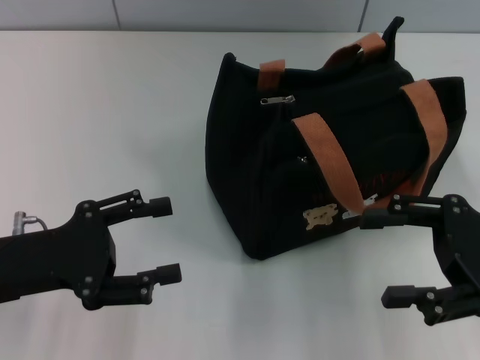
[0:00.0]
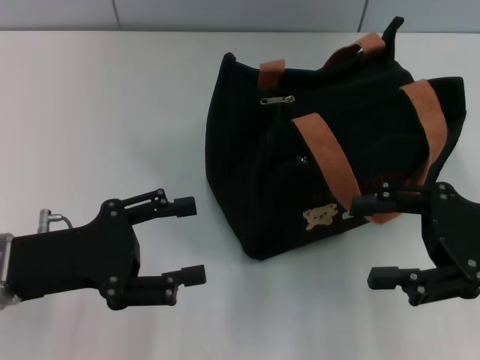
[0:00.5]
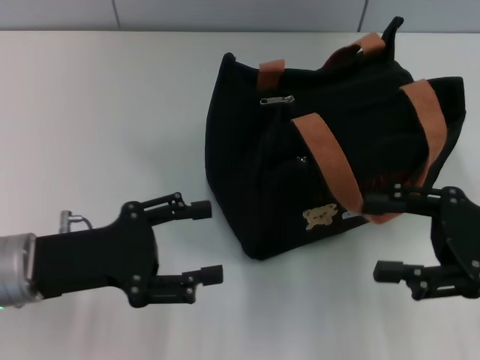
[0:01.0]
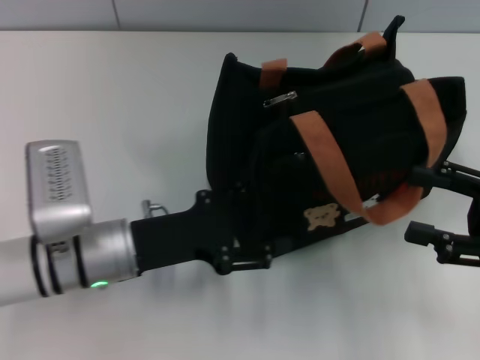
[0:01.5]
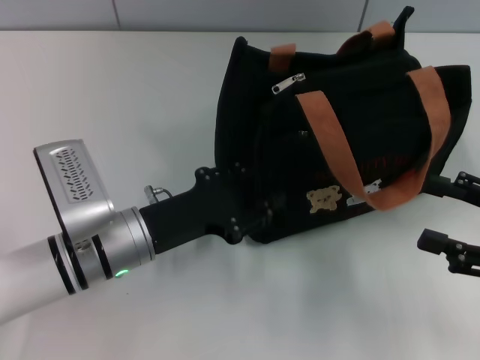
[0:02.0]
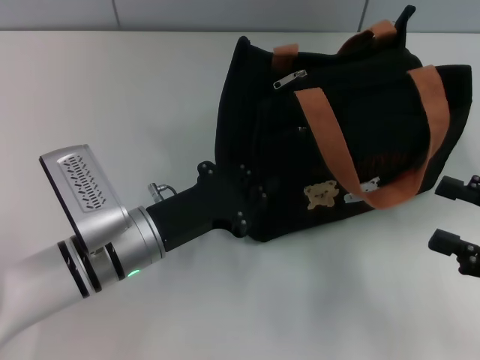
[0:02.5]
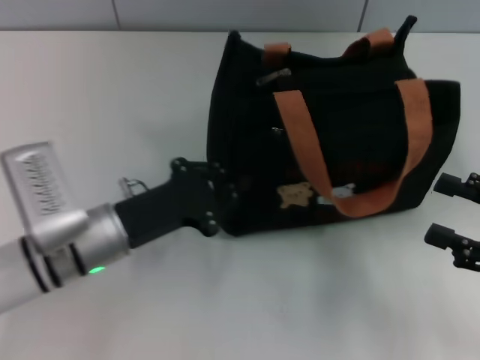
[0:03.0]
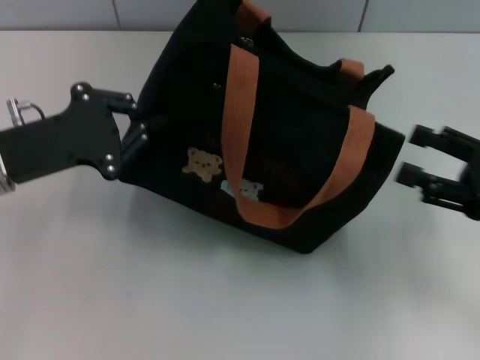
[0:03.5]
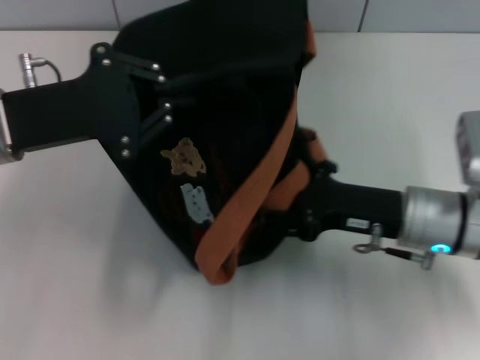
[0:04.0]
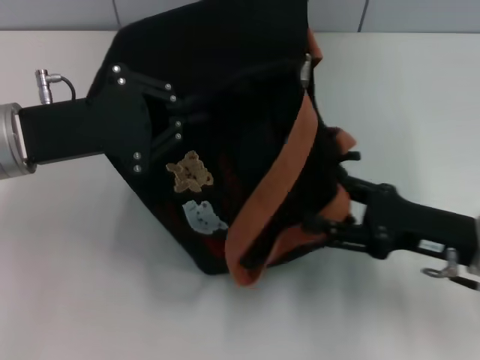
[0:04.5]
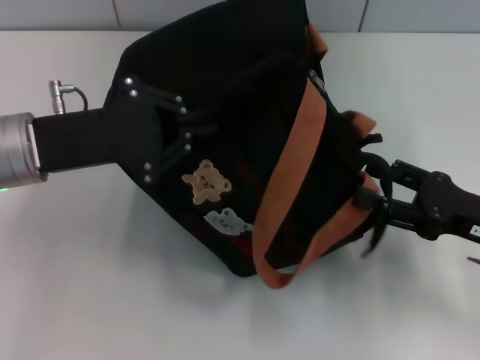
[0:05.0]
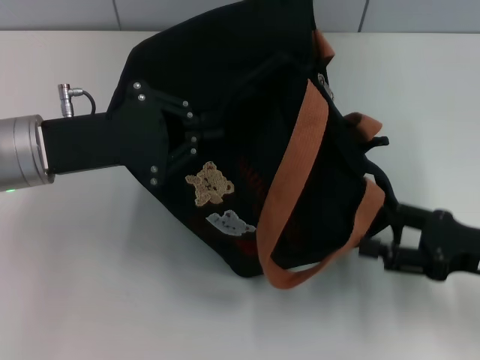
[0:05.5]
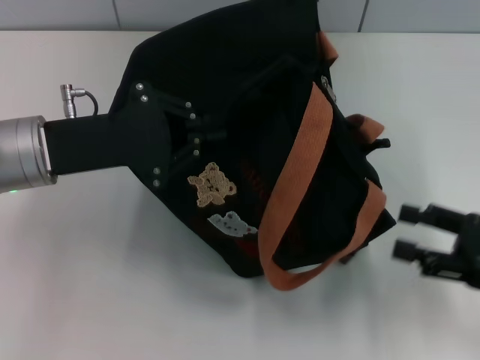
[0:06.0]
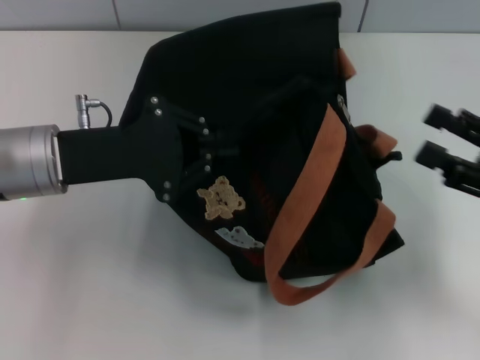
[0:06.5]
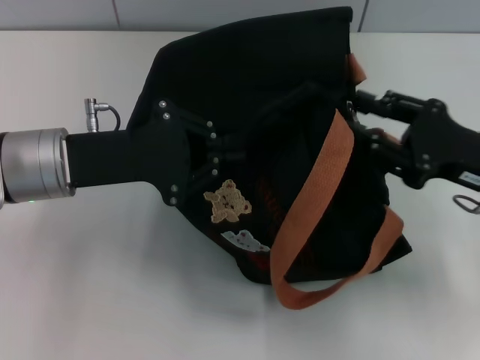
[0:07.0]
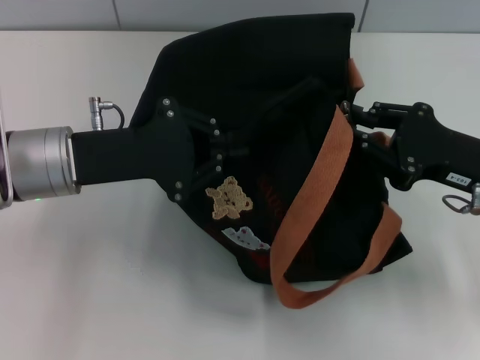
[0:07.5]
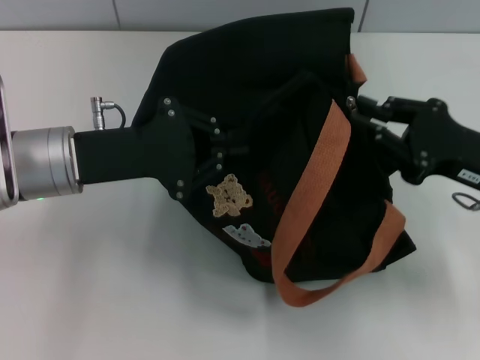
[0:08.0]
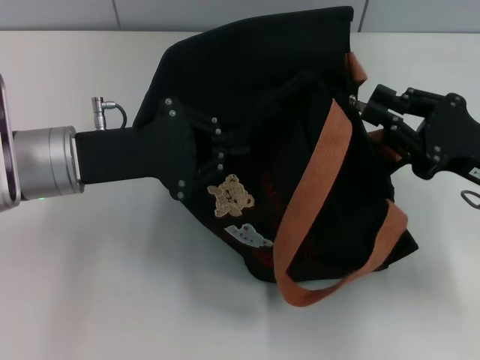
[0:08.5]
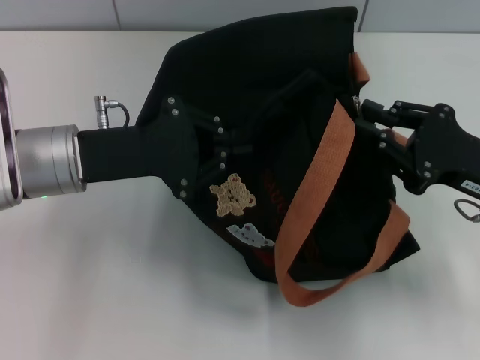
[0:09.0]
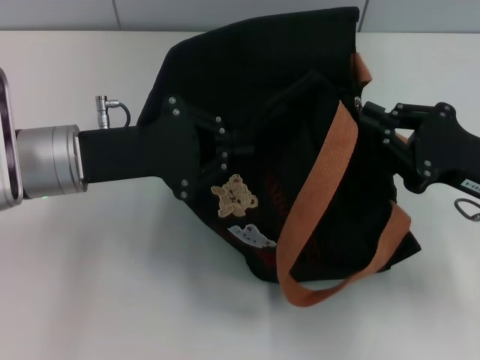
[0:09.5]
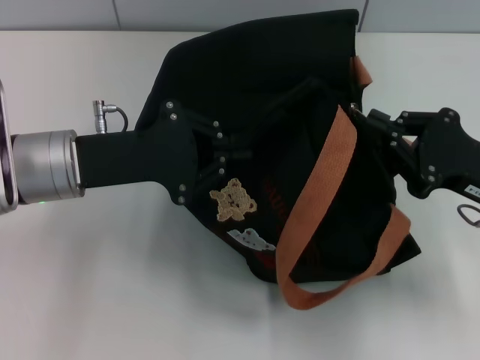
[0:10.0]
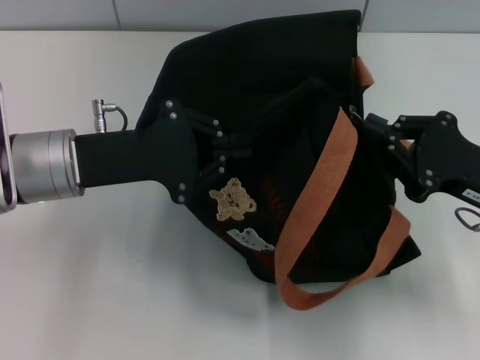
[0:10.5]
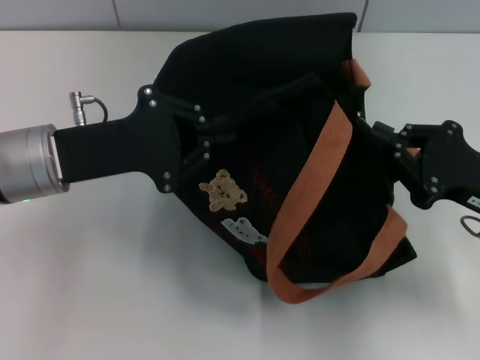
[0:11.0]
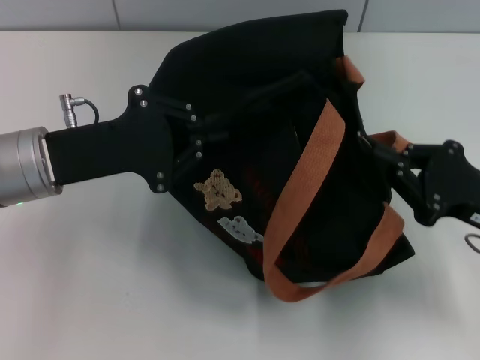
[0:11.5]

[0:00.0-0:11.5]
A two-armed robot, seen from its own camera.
0:00.0 to 0:02.0: The right gripper shifts by about 5 cm; the left gripper heads to the right and downward, covering about 15 cm.
0:02.0 to 0:04.0: The right gripper moves to the left and forward, about 15 cm. The left gripper goes about 15 cm upward and to the left, and closes.
0:04.0 to 0:06.0: The right gripper moves to the right and backward, some 15 cm.
0:06.0 to 0:07.5: The right gripper travels forward and to the left by approximately 10 cm, and closes up.
0:07.5 to 0:11.5: The grippers stay close to where they were, moving slightly.

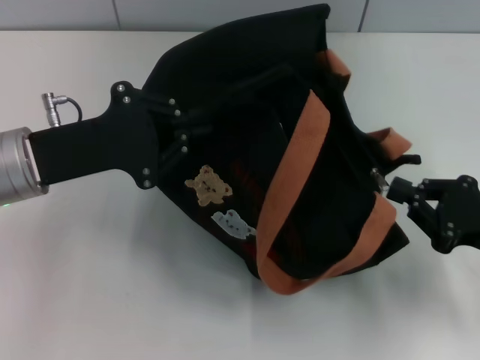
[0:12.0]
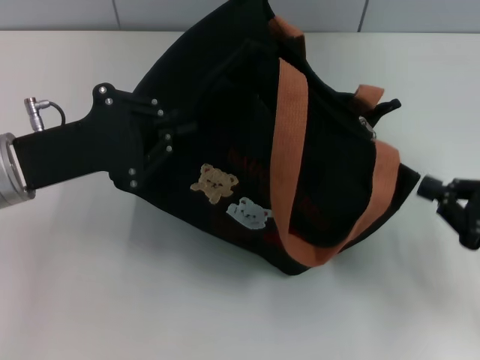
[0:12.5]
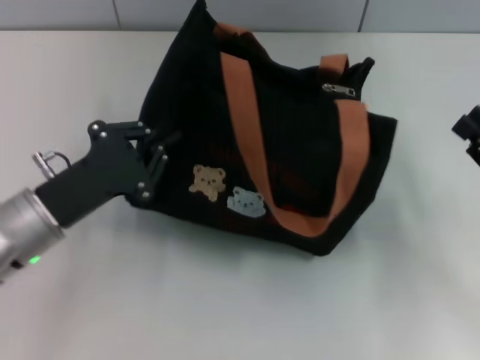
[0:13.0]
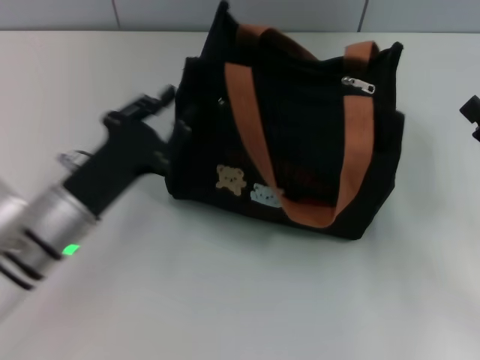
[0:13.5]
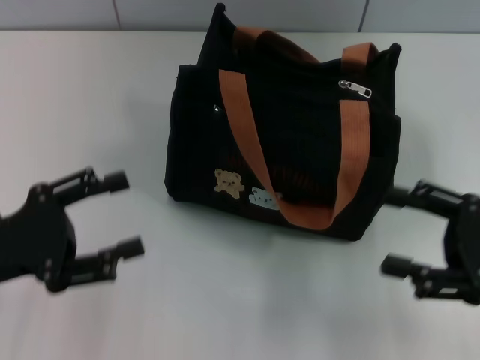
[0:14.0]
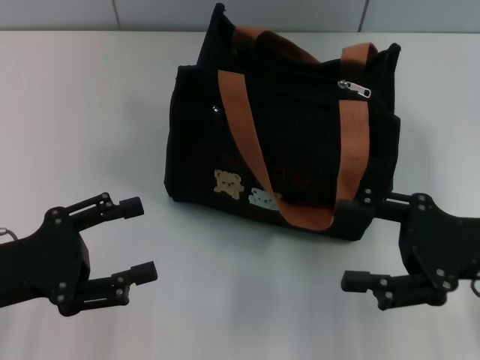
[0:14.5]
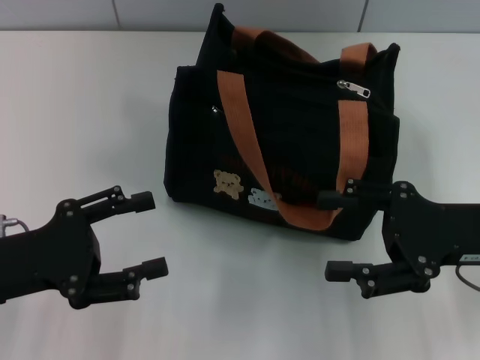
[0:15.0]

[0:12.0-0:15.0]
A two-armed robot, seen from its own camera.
Step, 0:12.5 to 0:13.0: Grab the bag with your left hand.
0:12.0 to 0:13.5: The left gripper moves downward, some 10 cm. Meanwhile the right gripper opens up.
0:13.5 to 0:15.0: The two grippers go about 10 cm to the left. The left gripper opens up.

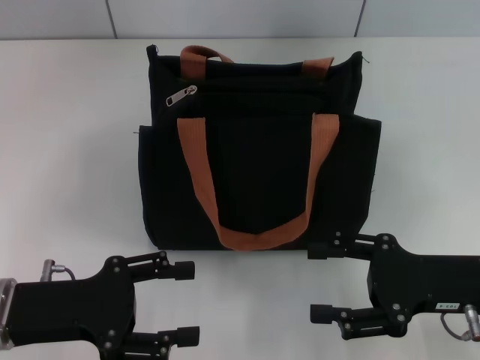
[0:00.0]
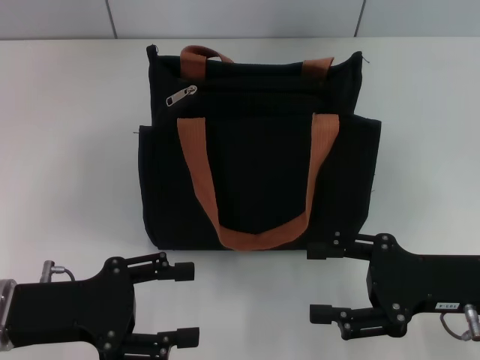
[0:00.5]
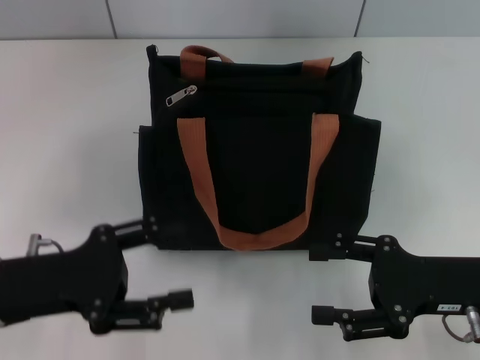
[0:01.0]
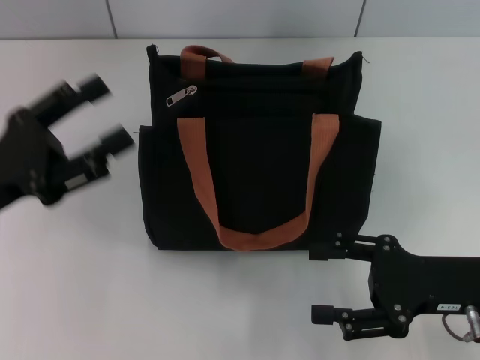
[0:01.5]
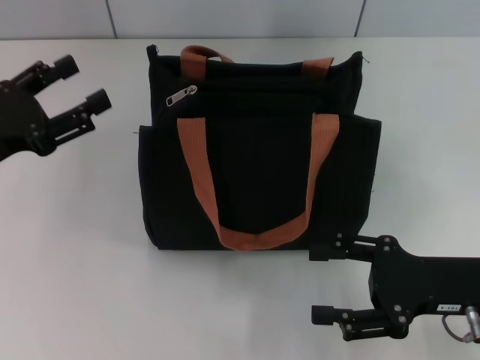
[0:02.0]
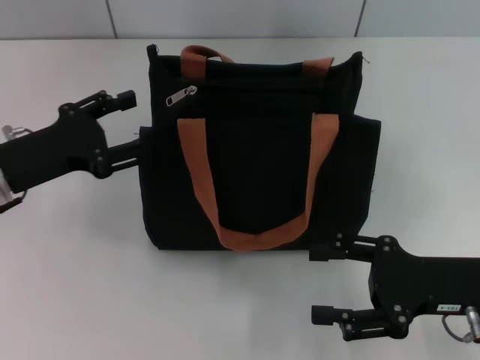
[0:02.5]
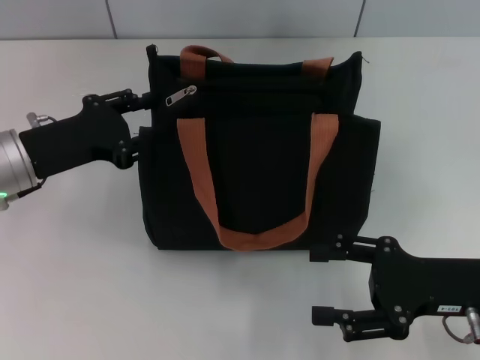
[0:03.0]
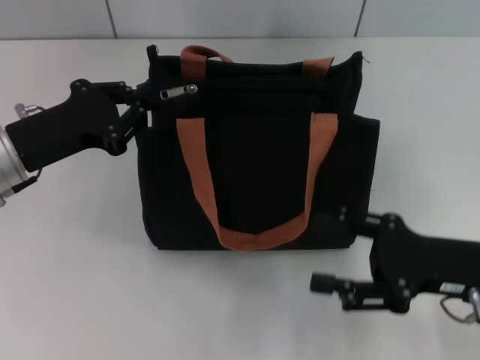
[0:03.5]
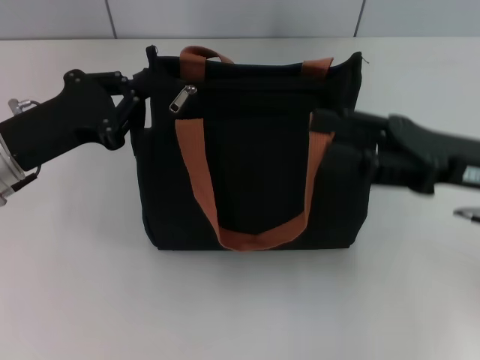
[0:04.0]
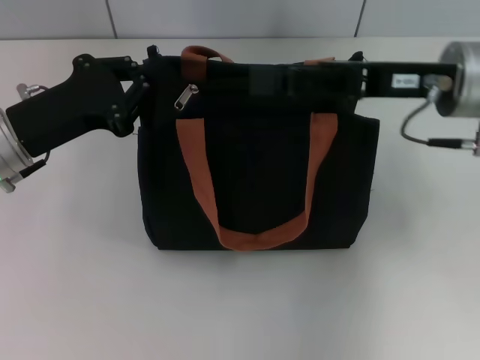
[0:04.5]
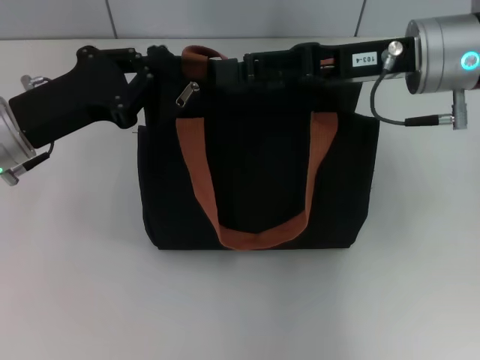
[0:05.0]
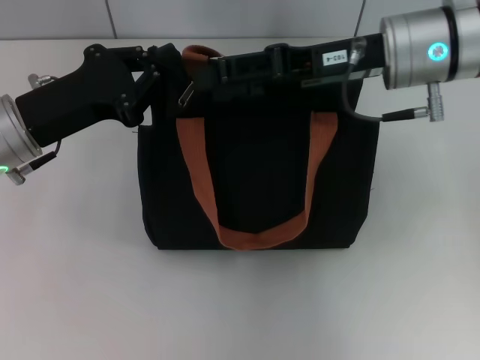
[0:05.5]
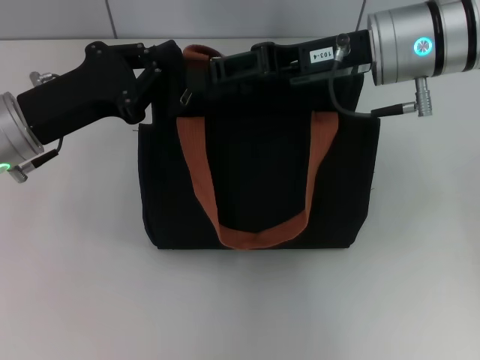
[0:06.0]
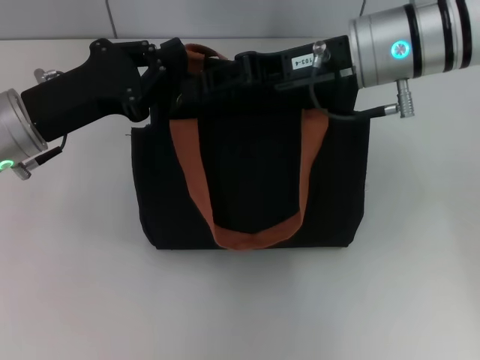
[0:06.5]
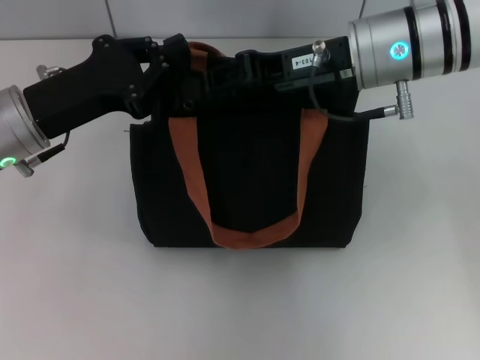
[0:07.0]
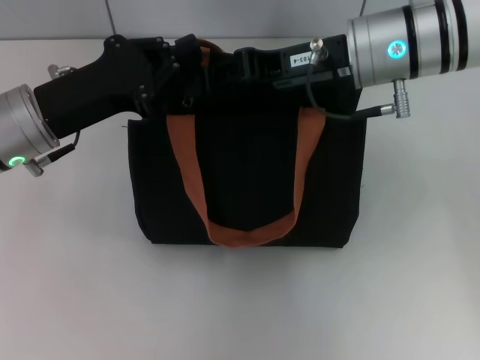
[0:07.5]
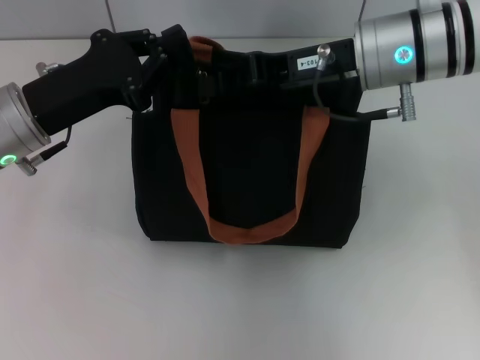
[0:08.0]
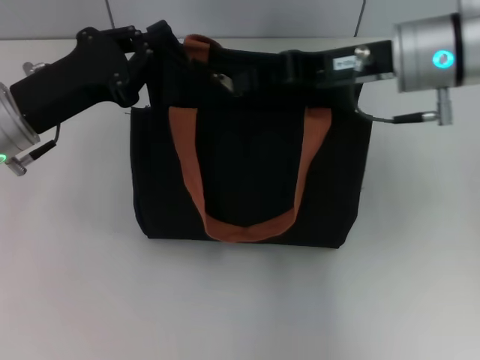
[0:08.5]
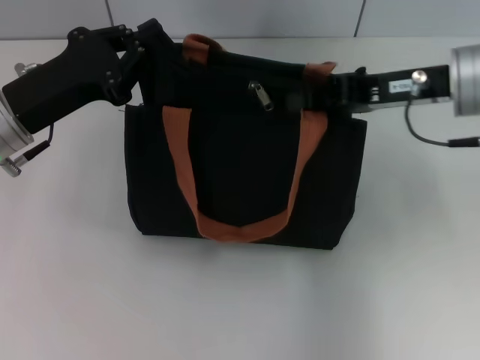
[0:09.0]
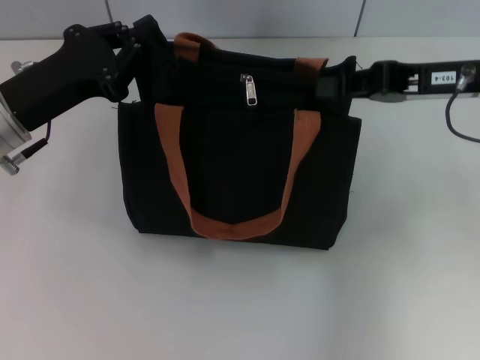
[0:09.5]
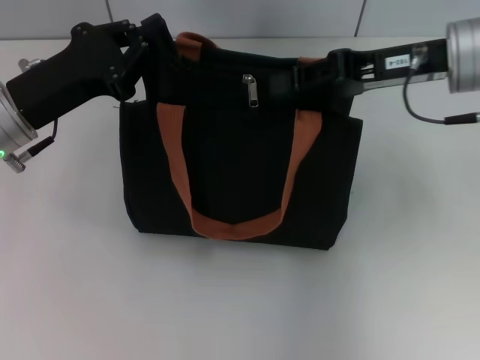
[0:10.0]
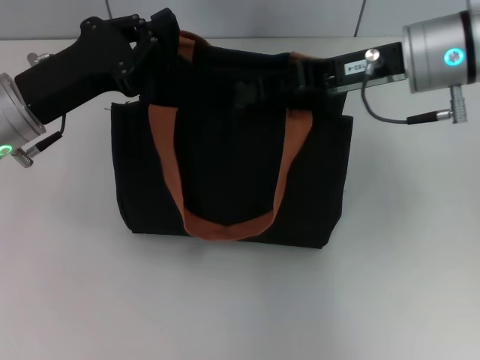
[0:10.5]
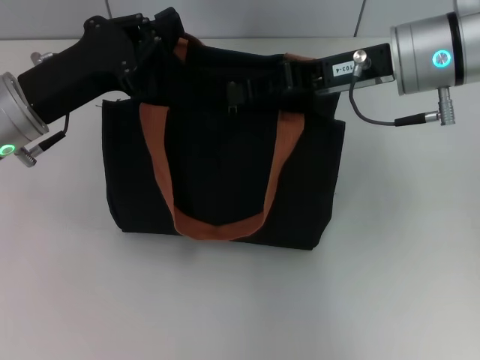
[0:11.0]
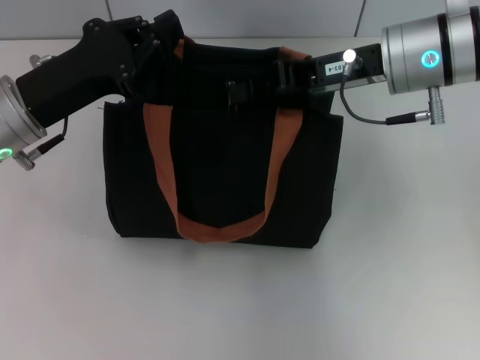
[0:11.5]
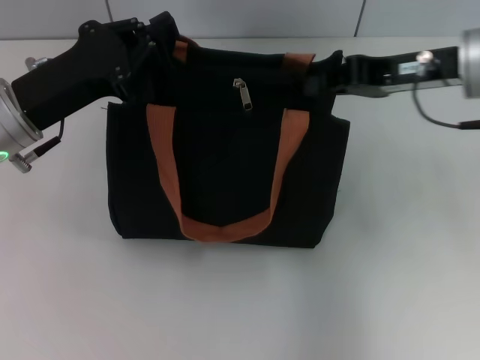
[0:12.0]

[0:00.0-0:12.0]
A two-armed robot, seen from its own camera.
0:00.0 to 0:02.0: The left gripper travels forward and to the left by some 10 cm.
0:02.0 to 0:04.0: The right gripper moves upward and forward, approximately 10 cm. Meanwhile the left gripper moves to the right, some 5 cm, and closes its fingers.
0:04.0 to 0:06.0: The right gripper heads forward, to the left and upward, covering approximately 15 cm.
0:06.0 to 0:08.0: The right gripper closes its fingers.
0:08.0 to 0:10.0: The right gripper shifts approximately 5 cm to the right.
0:10.0 to 0:12.0: There are only small adjustments of the grippers.
